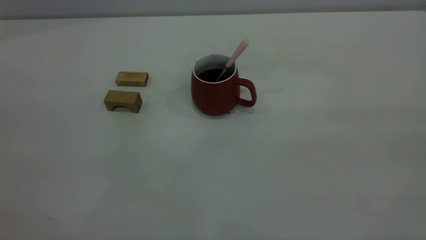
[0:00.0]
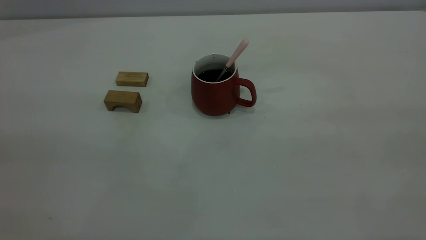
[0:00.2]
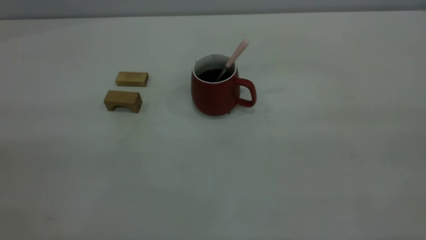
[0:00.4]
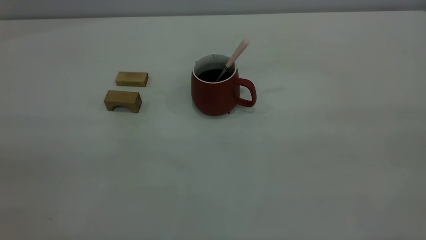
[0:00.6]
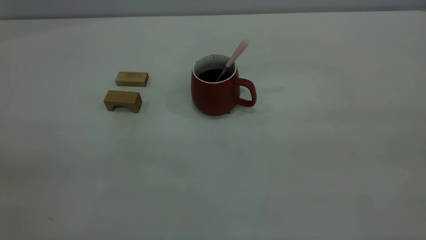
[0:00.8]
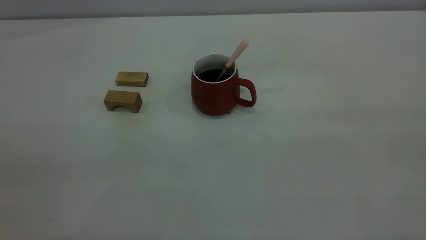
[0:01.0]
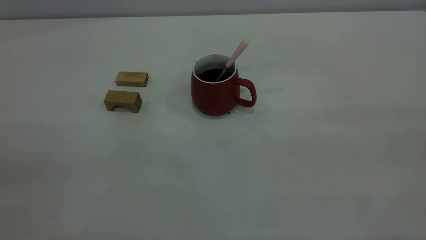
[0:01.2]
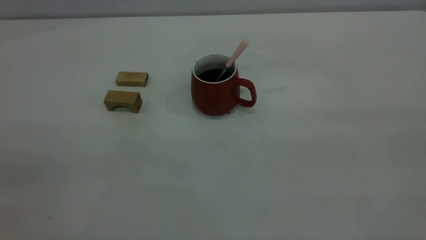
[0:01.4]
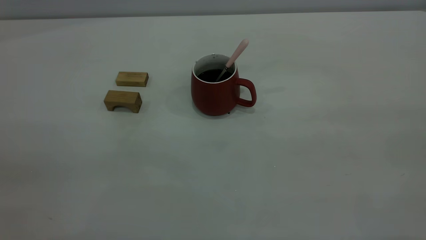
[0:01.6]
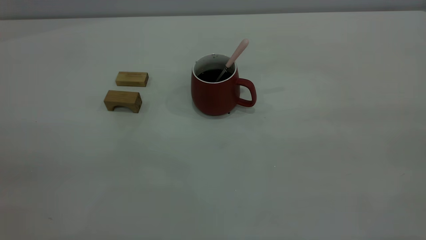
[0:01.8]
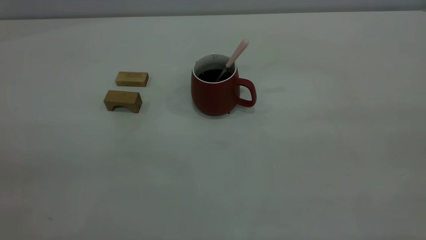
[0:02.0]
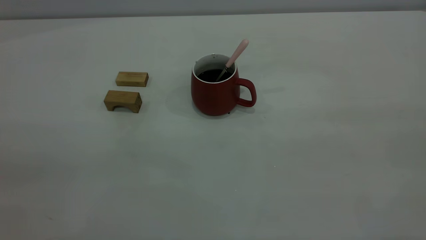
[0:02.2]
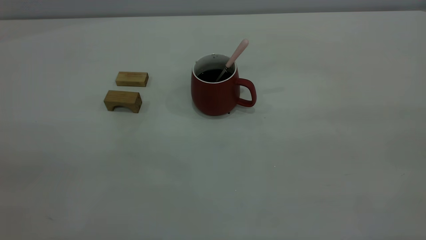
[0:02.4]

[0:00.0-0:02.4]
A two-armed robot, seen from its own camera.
0:01.2 to 0:02.4: Both grippers stay about where they are.

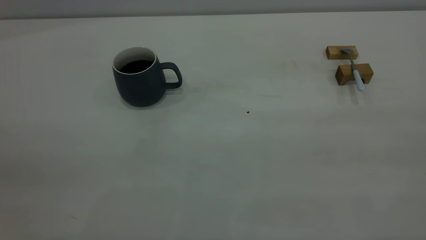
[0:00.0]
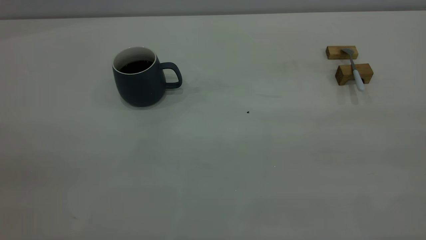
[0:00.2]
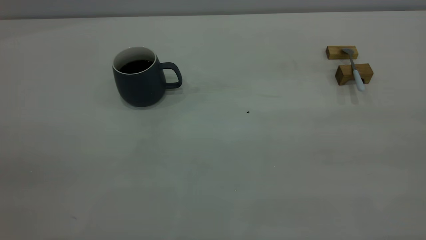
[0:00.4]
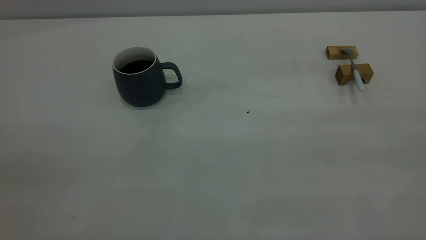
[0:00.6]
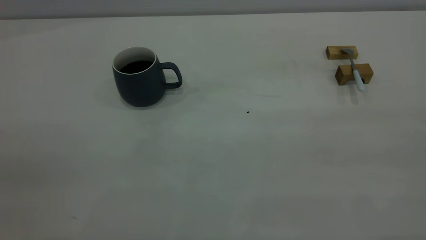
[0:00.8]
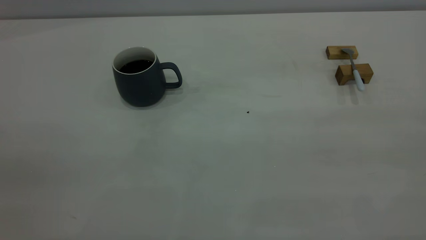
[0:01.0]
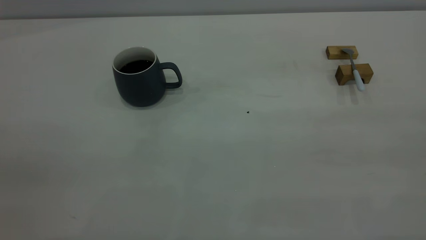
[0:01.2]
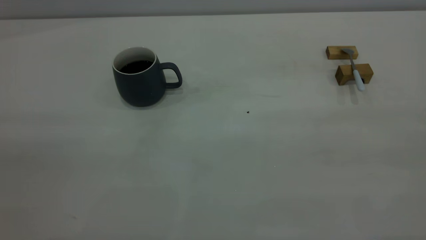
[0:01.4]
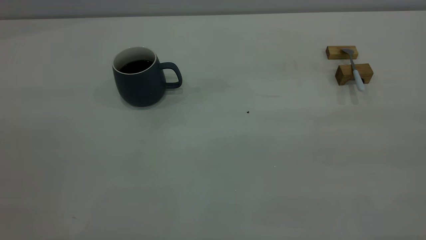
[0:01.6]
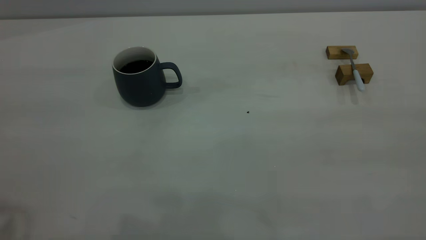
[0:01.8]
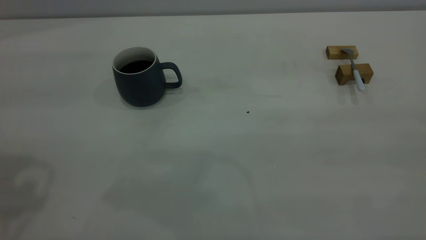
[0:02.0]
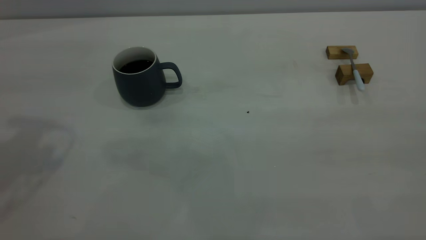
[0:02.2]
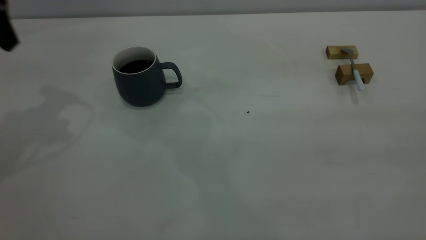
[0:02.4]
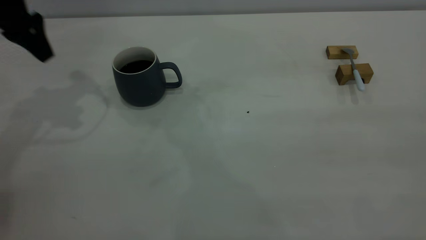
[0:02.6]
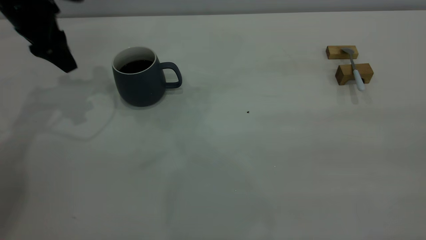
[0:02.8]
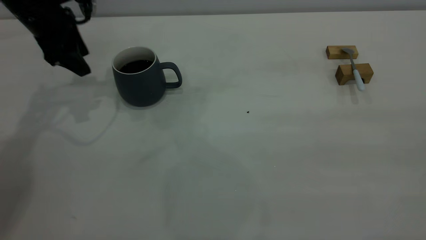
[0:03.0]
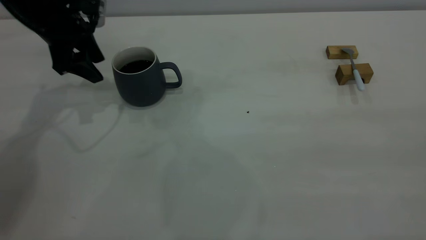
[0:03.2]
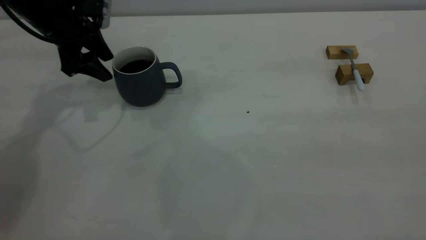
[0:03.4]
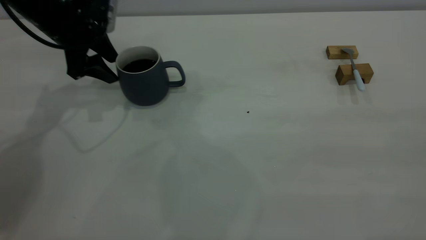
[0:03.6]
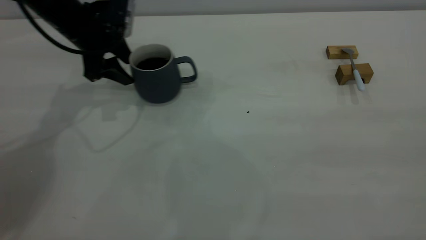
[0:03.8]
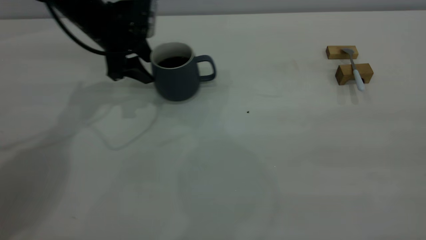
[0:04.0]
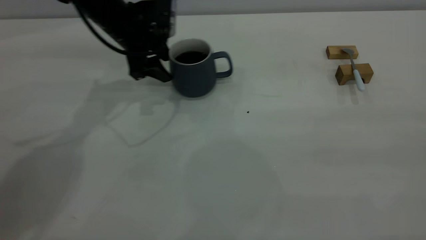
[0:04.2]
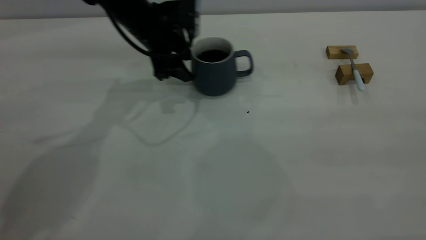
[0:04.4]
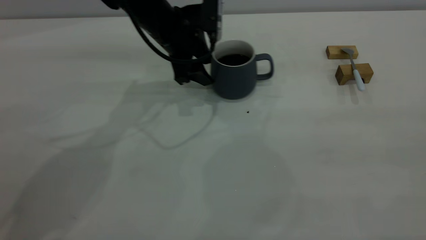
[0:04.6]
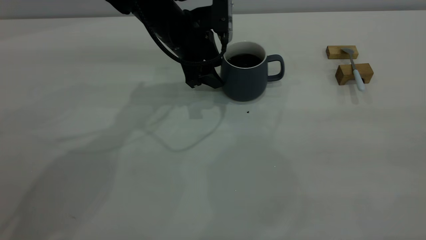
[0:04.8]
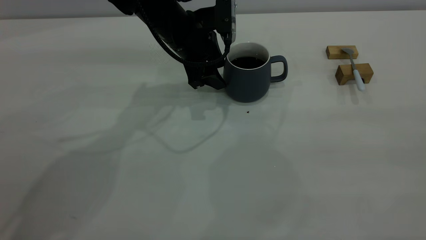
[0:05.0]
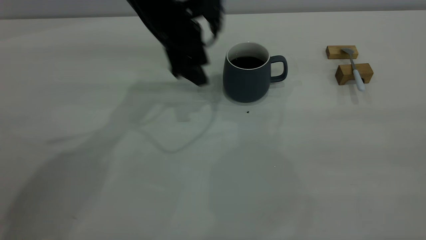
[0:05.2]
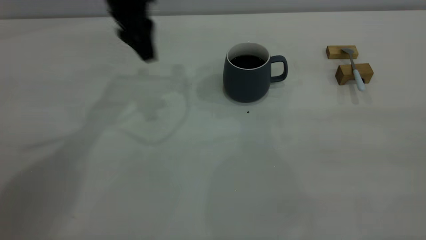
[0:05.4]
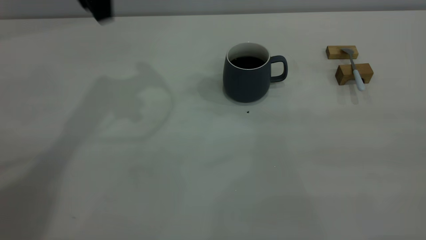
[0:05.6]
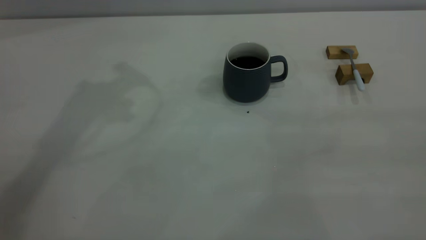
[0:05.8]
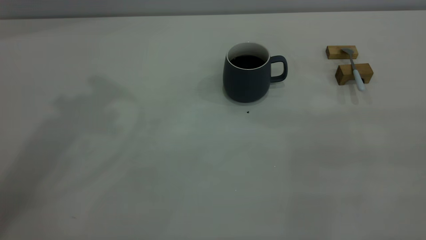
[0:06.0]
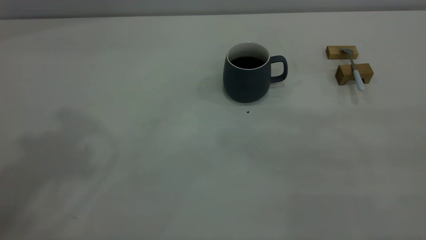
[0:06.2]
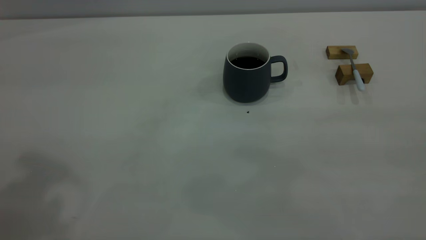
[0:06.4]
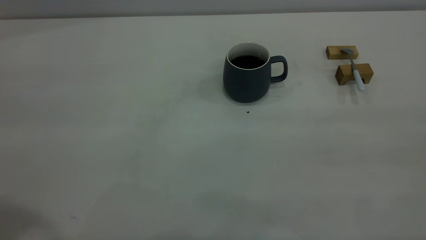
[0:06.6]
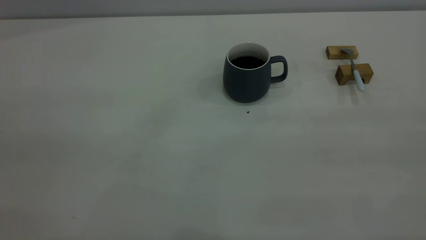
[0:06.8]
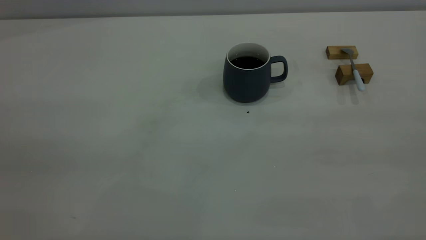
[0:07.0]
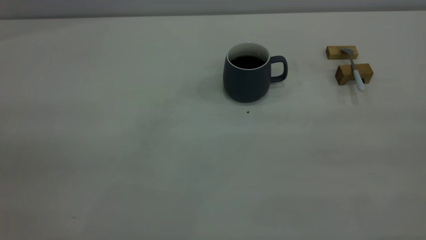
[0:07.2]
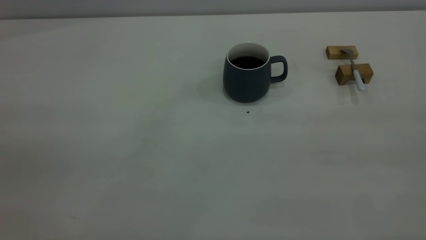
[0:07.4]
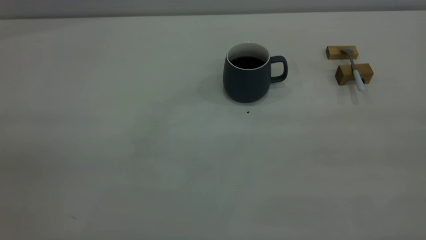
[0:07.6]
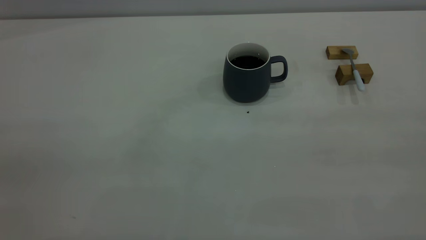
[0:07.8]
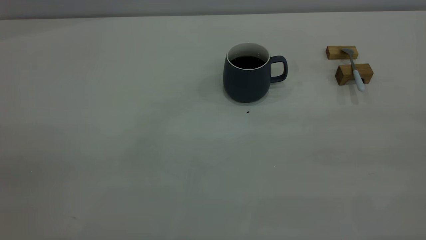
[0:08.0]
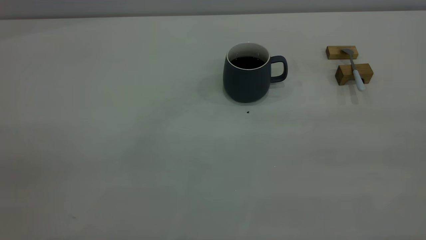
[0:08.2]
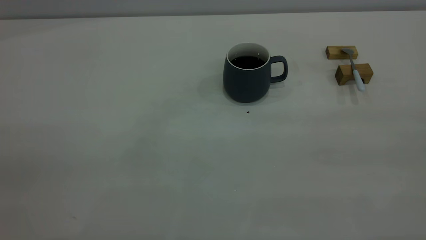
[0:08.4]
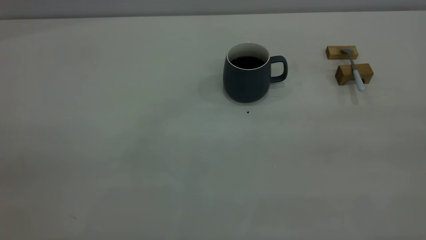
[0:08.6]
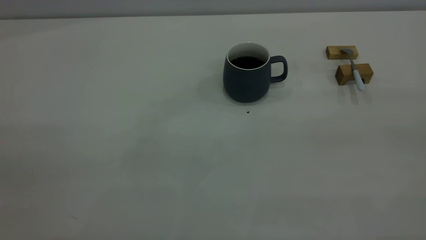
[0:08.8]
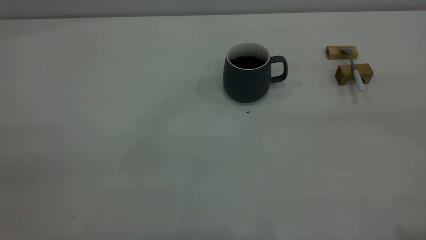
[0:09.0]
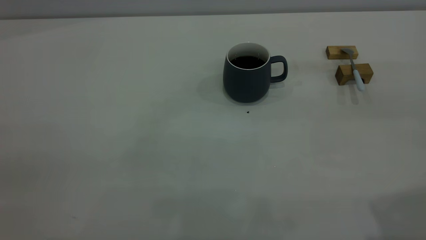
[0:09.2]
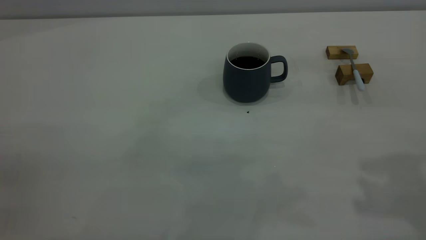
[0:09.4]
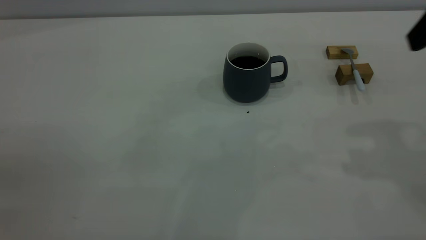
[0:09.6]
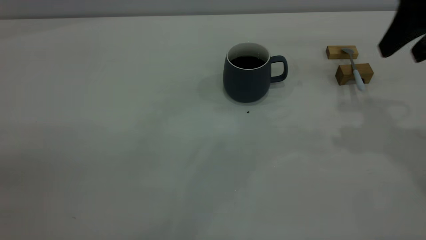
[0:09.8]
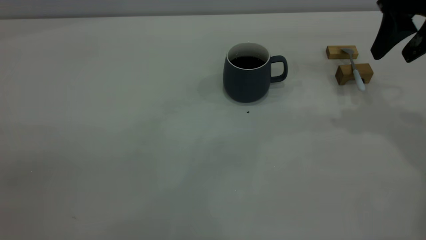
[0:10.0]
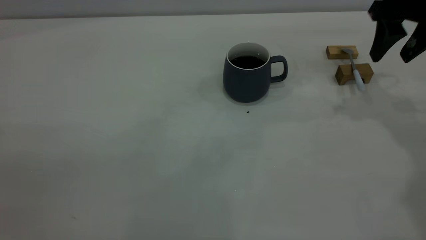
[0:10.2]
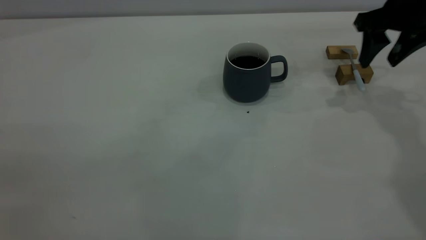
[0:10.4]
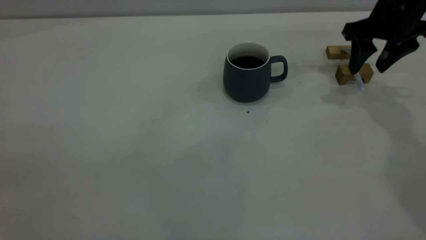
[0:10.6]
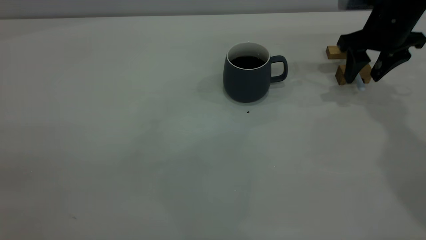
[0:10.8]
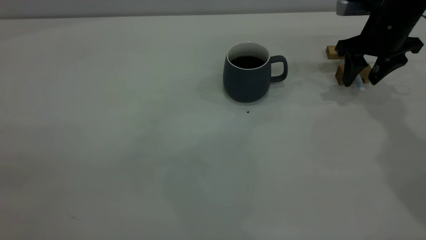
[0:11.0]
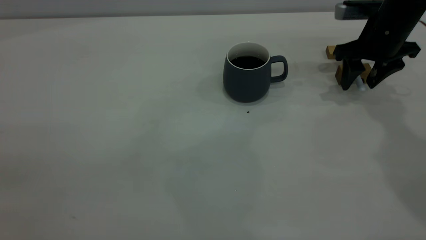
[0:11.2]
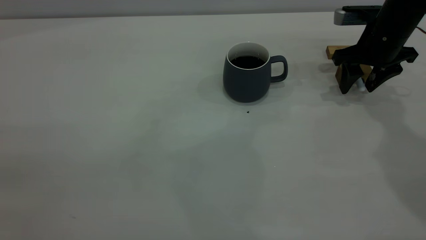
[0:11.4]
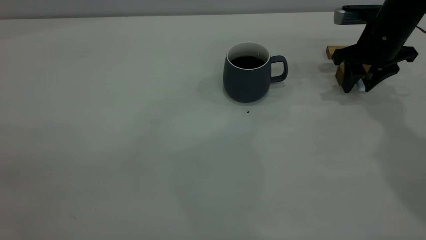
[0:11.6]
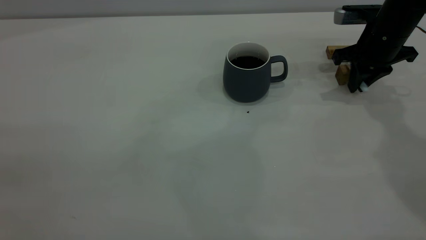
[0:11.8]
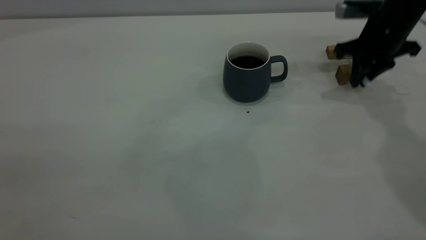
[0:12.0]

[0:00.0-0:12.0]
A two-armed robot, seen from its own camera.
Step, 0:00.0 to 0:05.2: Move the cup with coffee to the center of view.
0:01.6 to 0:03.0: The left gripper shifts approximately 40 cm forward and downward.
0:03.0 to 0:04.4: The left gripper travels to the right by about 15 cm.
0:04.4 to 0:06.0: The left gripper moves upward, approximately 35 cm.
0:09.0 to 0:10.4: The right gripper travels forward and downward by approximately 40 cm.
0:10.4 to 0:12.0: The right gripper shifts by roughly 5 cm, and closes its fingers.

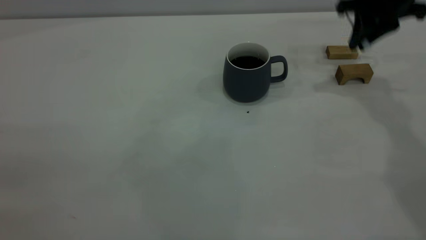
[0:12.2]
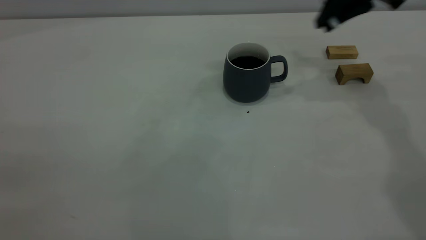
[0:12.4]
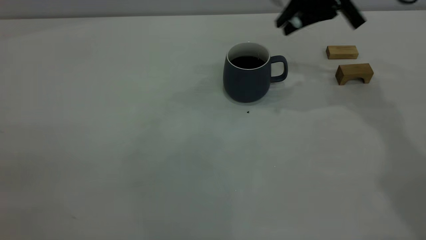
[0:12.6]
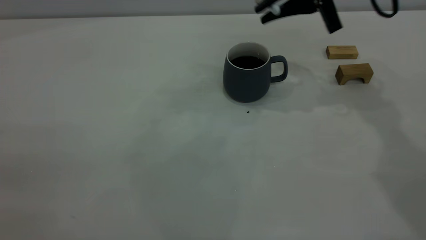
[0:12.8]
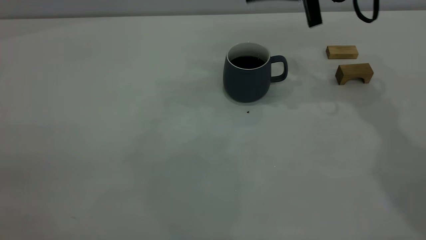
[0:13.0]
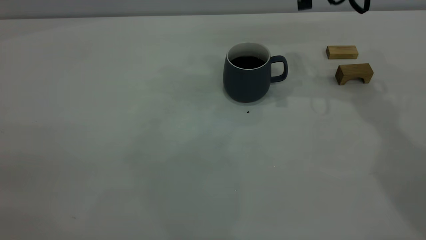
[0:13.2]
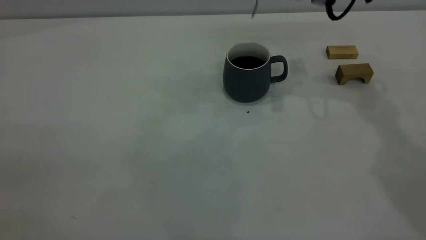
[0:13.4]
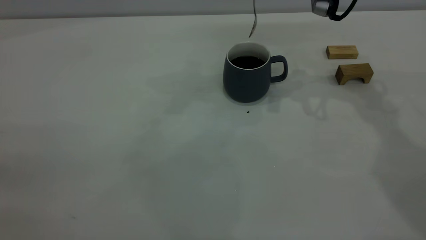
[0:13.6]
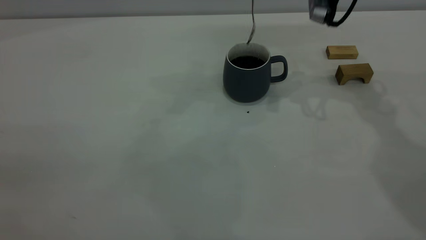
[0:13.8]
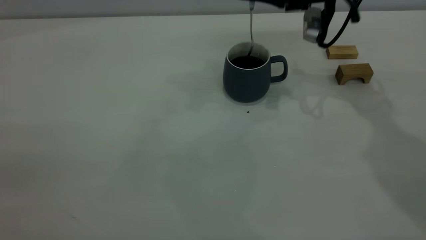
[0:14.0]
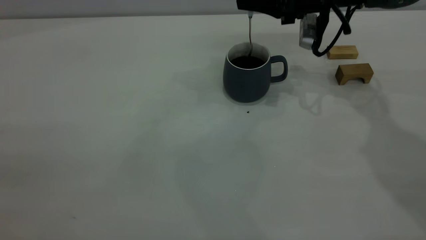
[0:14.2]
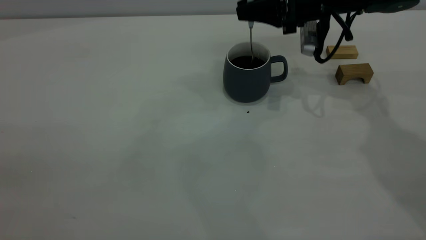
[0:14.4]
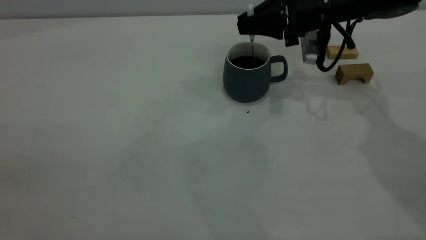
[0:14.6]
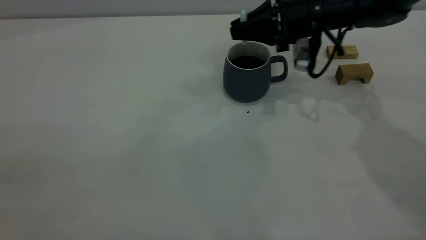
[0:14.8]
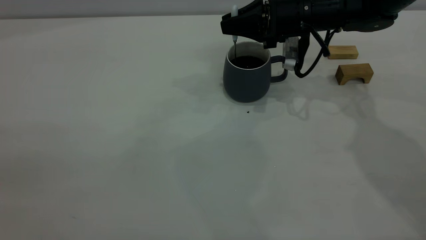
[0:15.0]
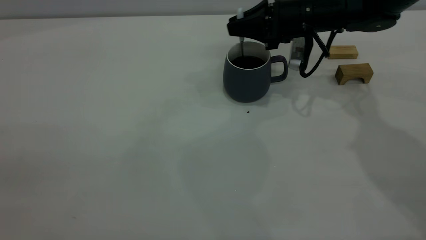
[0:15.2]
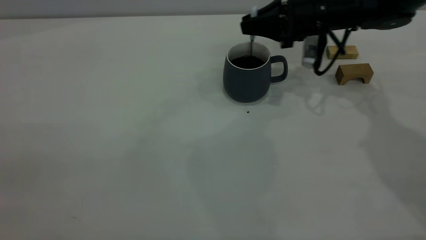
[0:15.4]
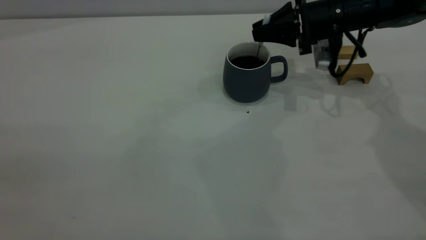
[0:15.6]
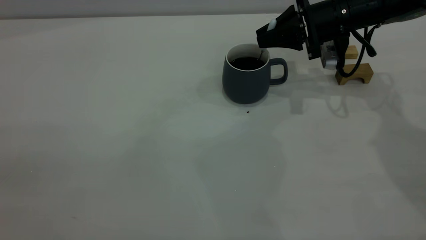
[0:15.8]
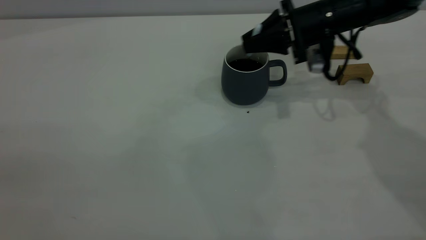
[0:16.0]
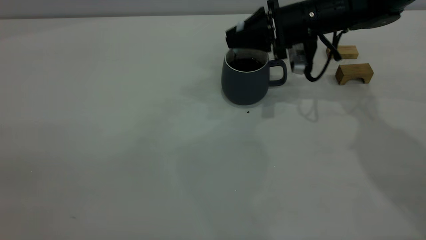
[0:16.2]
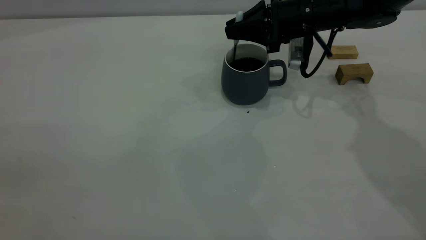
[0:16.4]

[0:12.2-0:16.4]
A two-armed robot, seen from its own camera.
0:12.2 to 0:13.6: The right gripper travels to the left by approximately 10 cm.
0:13.6 to 0:15.0: The right gripper is displaced downward by approximately 10 cm.
0:15.0 to 0:16.4: The grippers move only a little.
